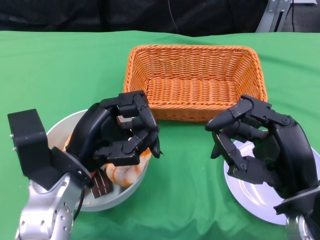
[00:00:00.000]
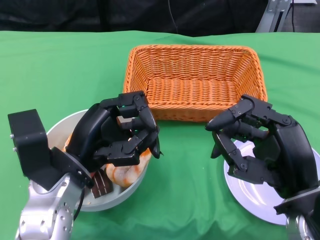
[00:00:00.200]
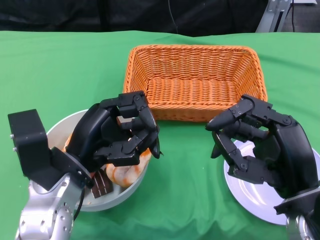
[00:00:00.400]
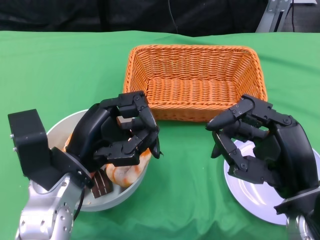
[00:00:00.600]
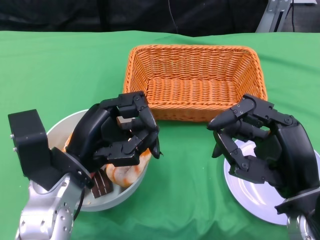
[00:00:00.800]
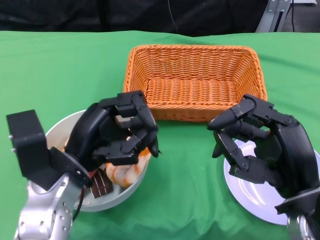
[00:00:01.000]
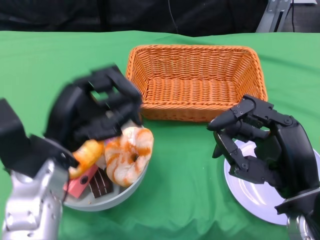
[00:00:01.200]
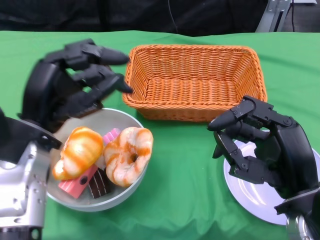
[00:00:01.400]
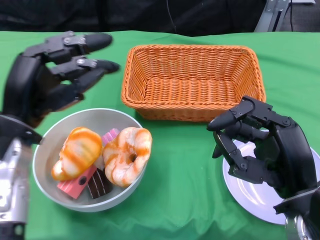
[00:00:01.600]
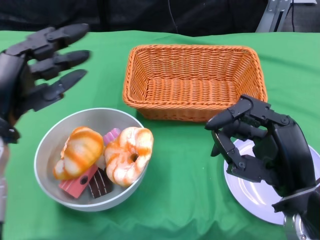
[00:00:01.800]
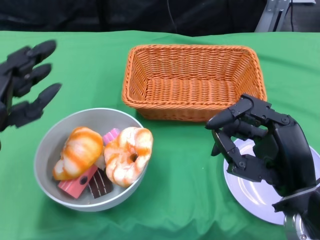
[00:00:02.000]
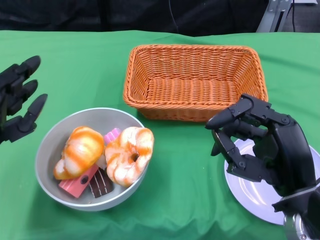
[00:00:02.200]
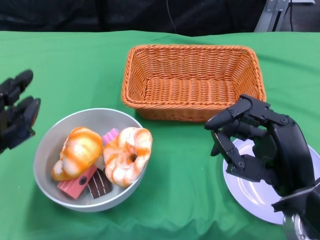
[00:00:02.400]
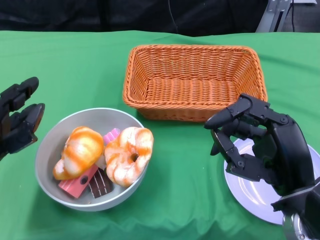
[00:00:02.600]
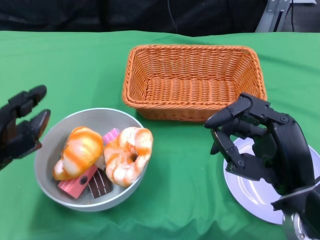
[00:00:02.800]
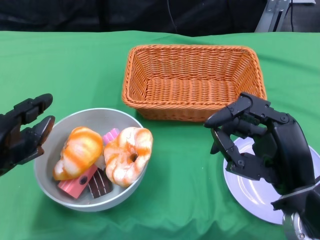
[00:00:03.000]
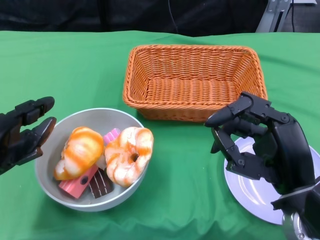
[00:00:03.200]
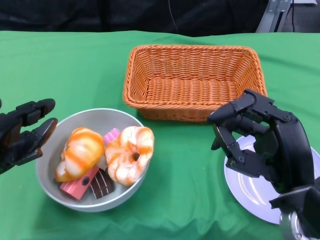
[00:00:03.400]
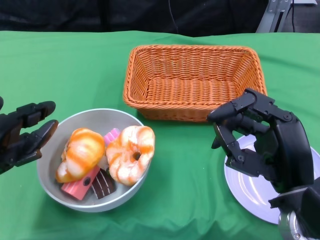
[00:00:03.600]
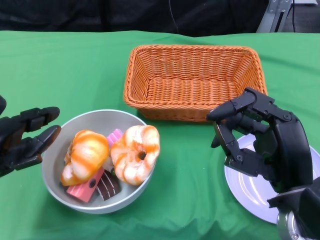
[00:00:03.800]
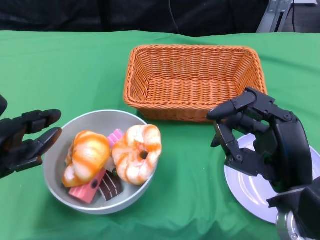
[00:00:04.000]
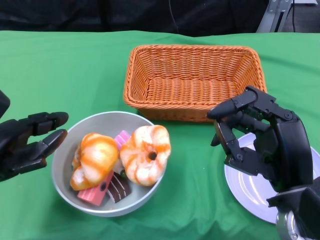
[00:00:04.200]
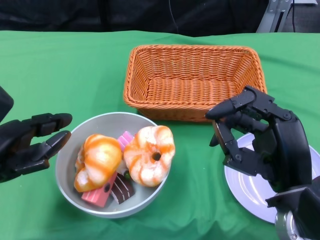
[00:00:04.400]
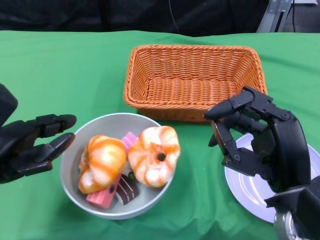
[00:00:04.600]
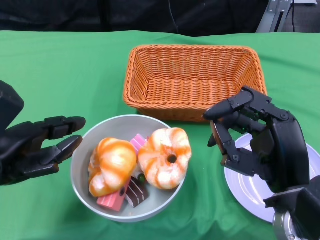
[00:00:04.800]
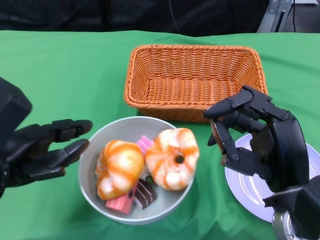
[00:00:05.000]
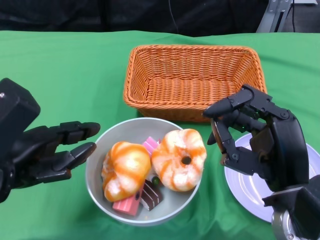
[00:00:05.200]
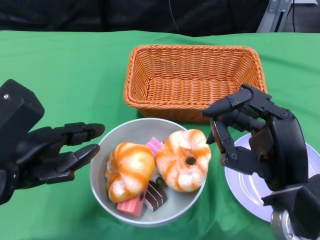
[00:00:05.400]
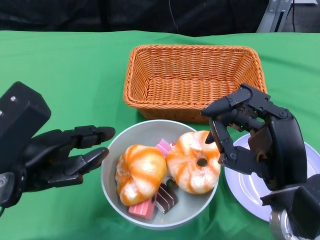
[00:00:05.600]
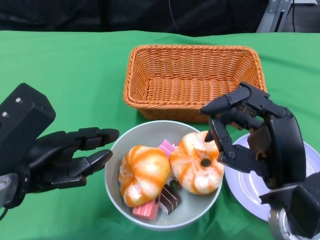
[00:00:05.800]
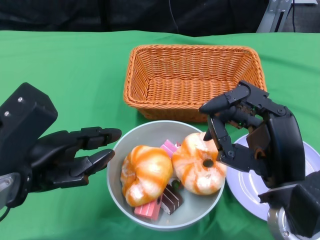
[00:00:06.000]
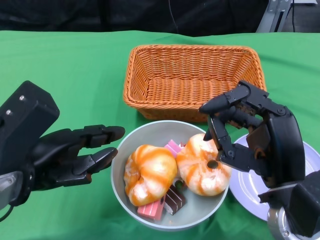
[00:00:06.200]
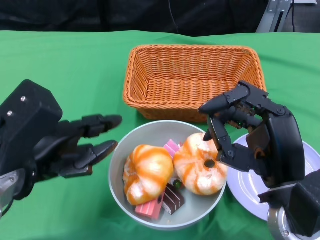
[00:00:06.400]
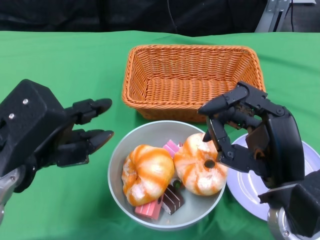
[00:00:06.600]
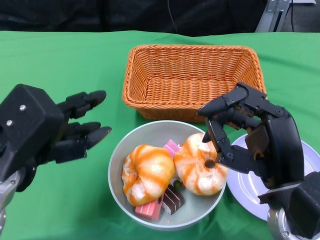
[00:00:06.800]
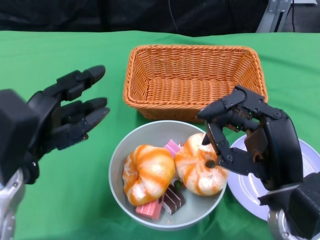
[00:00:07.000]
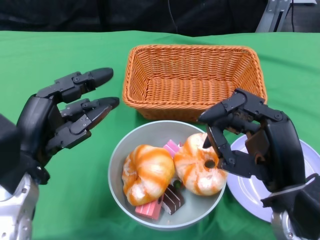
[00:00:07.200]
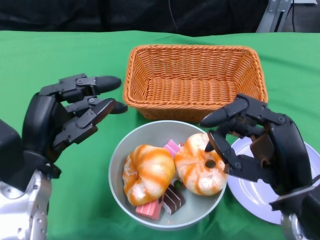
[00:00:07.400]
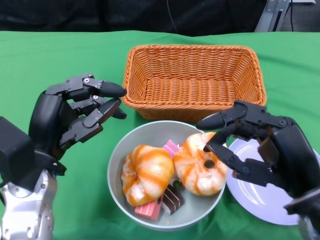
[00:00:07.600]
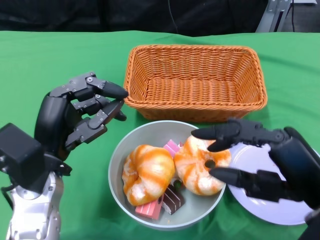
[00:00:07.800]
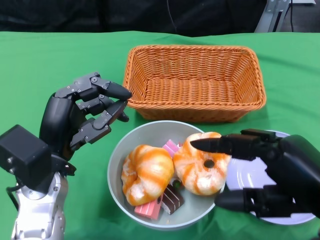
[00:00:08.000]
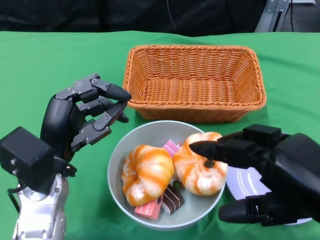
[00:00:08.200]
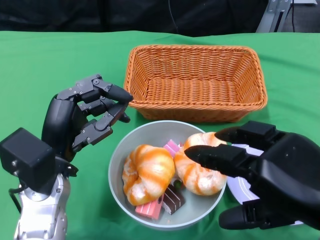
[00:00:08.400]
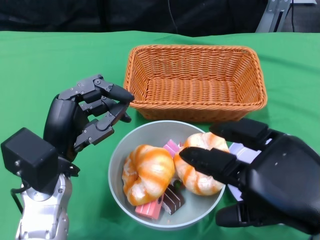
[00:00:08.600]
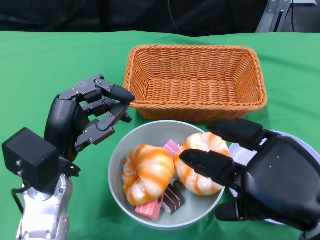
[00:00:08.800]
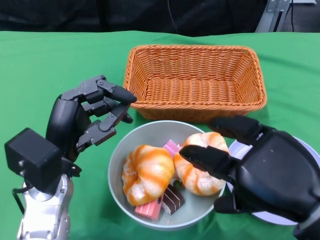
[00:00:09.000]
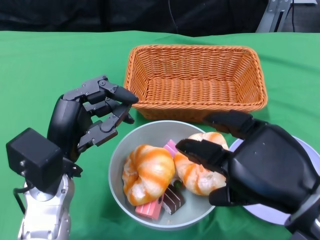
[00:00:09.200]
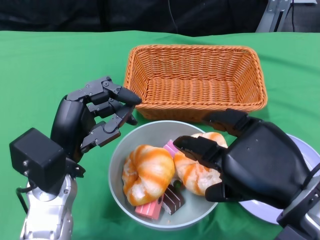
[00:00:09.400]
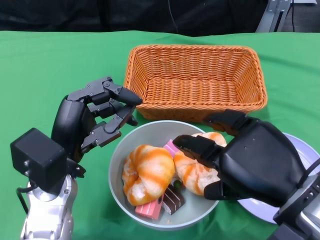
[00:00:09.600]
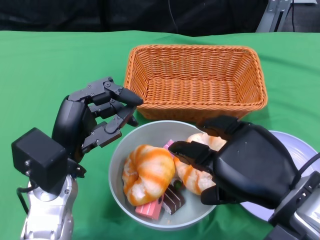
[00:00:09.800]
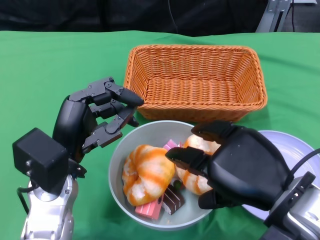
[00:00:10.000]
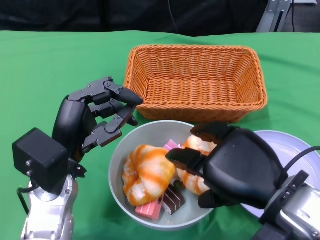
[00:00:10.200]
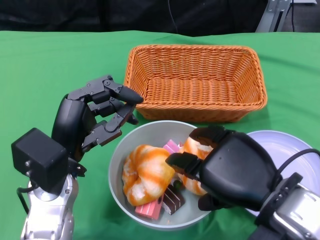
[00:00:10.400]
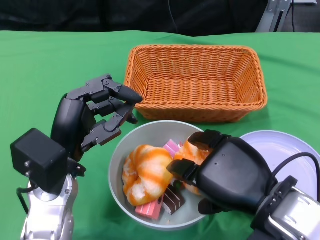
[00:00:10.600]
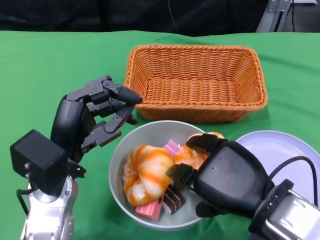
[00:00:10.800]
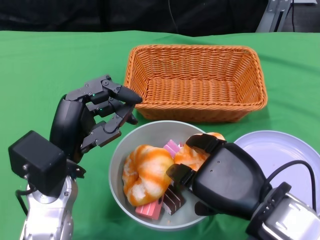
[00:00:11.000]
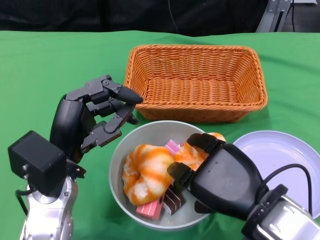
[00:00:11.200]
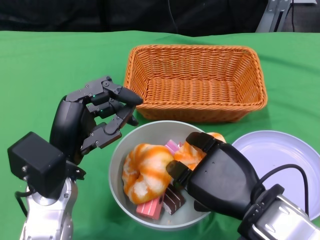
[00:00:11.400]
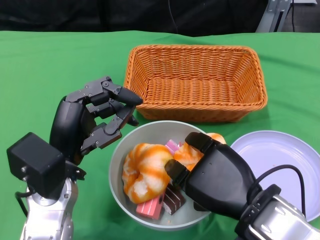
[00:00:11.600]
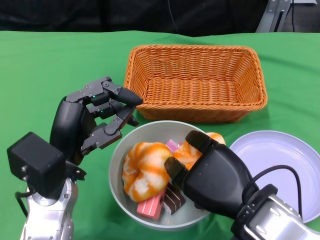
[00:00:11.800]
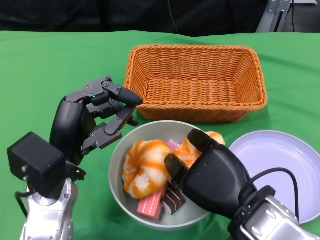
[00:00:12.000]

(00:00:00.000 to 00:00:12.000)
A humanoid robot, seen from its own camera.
Step, 00:00:00.000 - 00:00:06.600: Push the bowl to the center of the table using the left gripper.
00:00:01.600 - 00:00:03.000: The left hand is displaced to the left by roughly 5 cm.
00:00:06.000 - 00:00:07.600: The left hand shifts by roughly 5 cm.

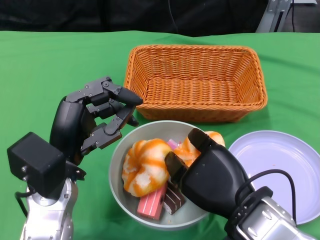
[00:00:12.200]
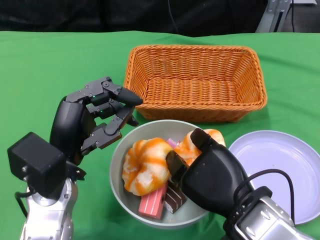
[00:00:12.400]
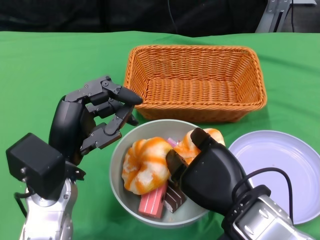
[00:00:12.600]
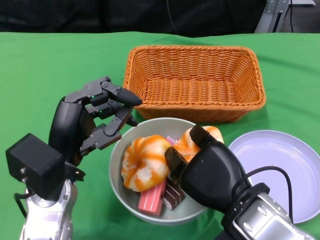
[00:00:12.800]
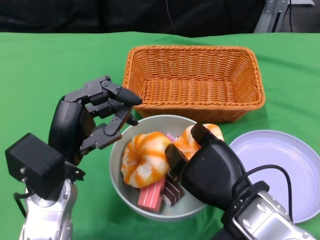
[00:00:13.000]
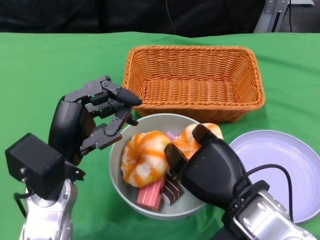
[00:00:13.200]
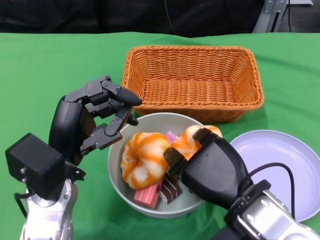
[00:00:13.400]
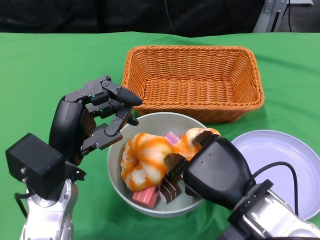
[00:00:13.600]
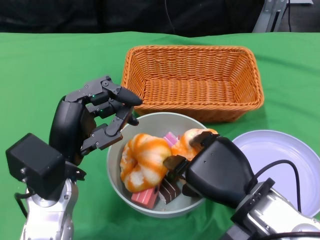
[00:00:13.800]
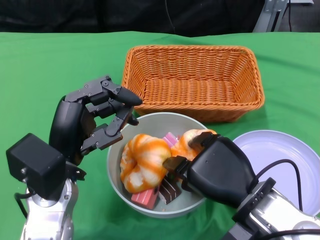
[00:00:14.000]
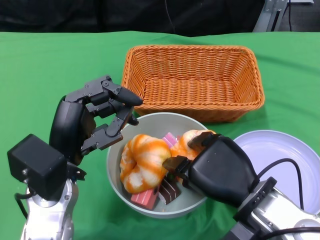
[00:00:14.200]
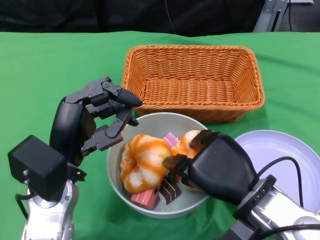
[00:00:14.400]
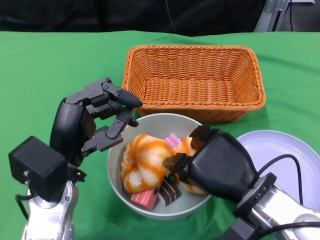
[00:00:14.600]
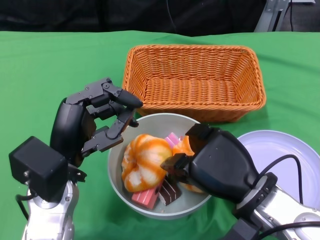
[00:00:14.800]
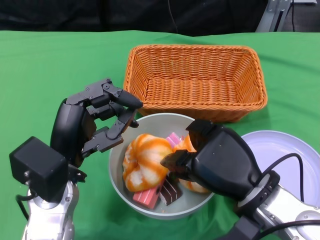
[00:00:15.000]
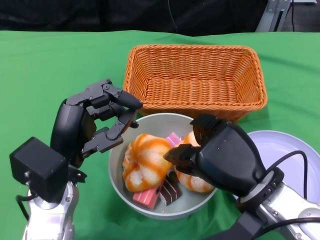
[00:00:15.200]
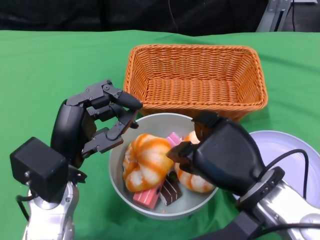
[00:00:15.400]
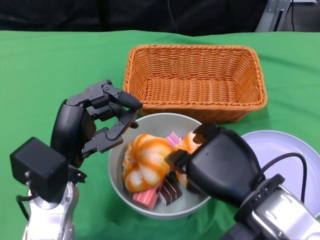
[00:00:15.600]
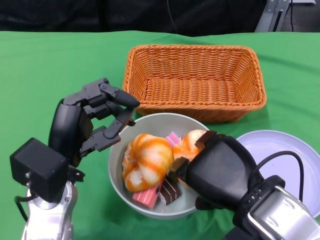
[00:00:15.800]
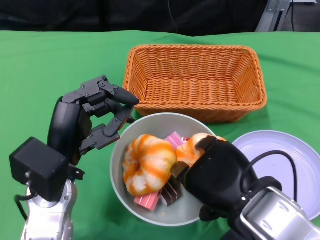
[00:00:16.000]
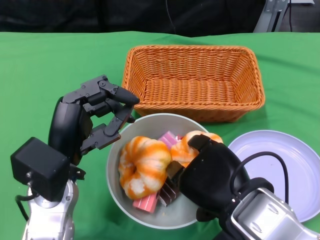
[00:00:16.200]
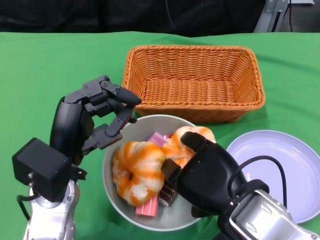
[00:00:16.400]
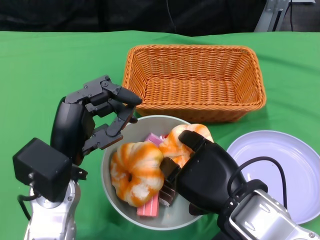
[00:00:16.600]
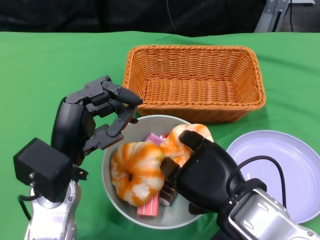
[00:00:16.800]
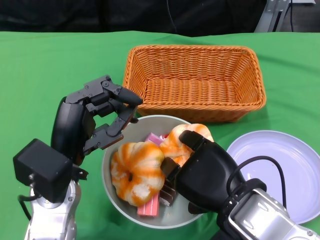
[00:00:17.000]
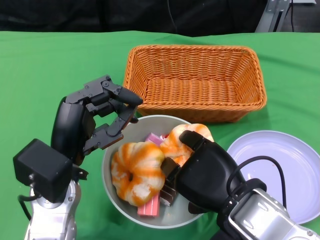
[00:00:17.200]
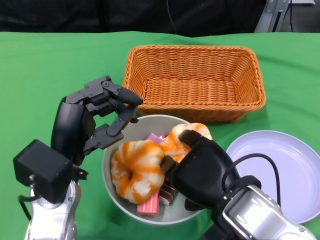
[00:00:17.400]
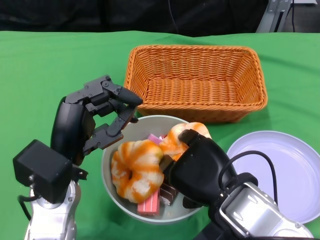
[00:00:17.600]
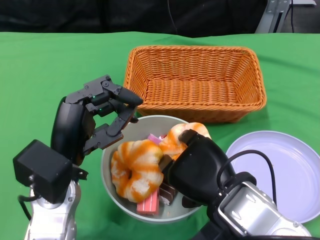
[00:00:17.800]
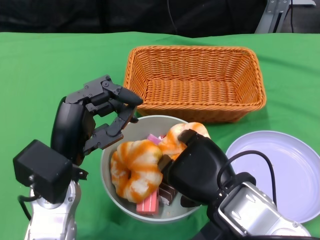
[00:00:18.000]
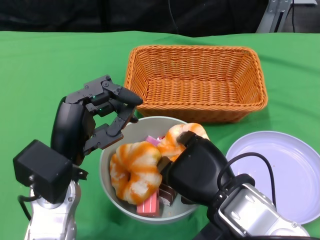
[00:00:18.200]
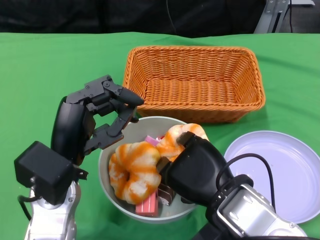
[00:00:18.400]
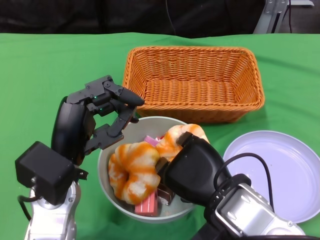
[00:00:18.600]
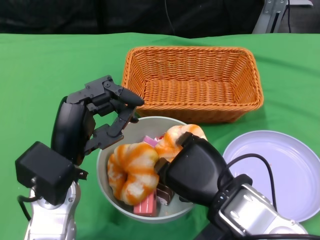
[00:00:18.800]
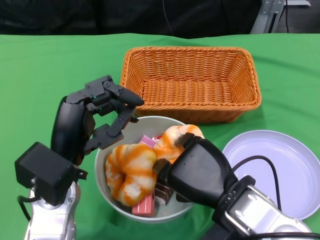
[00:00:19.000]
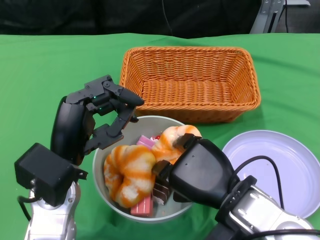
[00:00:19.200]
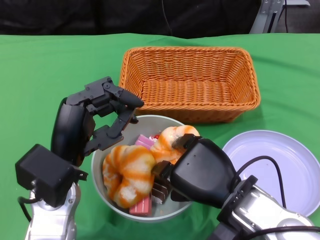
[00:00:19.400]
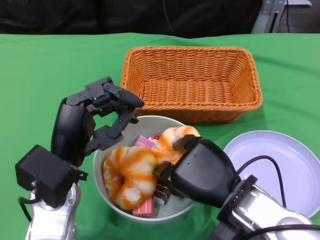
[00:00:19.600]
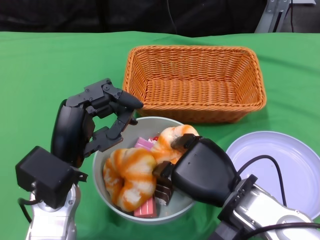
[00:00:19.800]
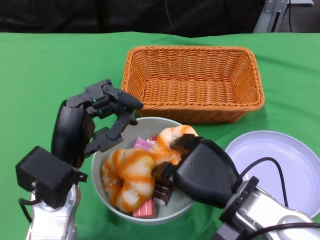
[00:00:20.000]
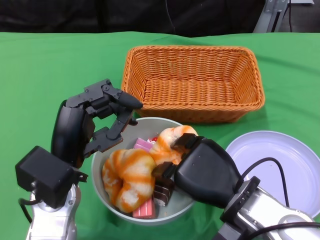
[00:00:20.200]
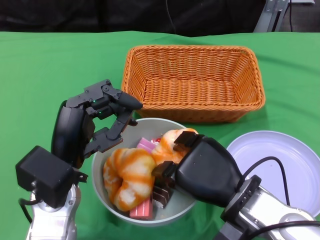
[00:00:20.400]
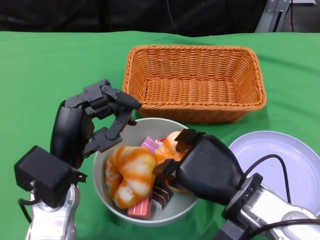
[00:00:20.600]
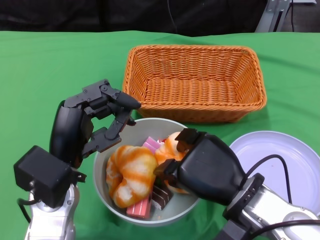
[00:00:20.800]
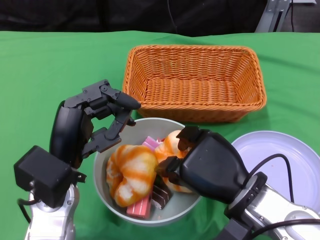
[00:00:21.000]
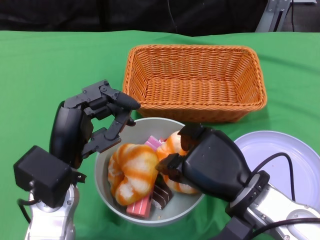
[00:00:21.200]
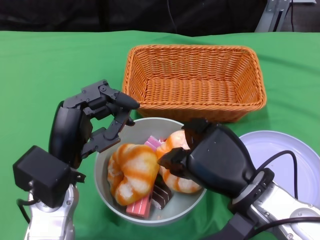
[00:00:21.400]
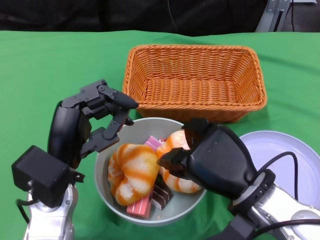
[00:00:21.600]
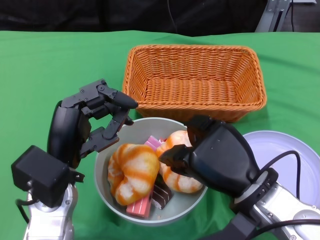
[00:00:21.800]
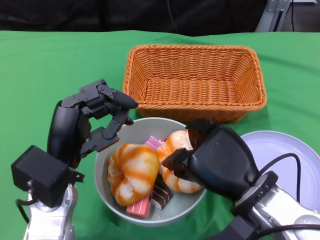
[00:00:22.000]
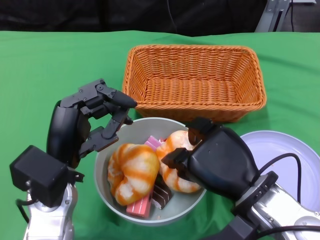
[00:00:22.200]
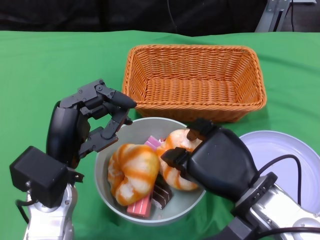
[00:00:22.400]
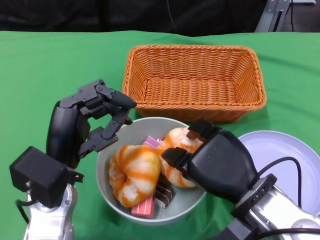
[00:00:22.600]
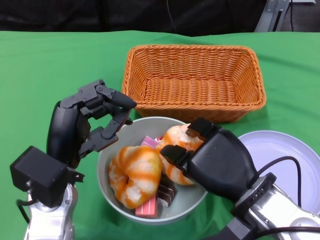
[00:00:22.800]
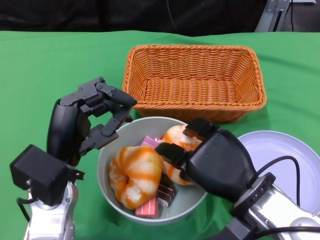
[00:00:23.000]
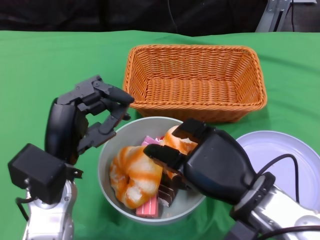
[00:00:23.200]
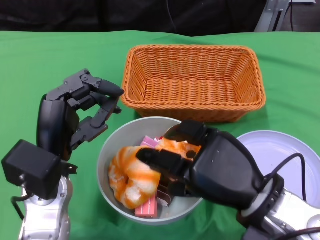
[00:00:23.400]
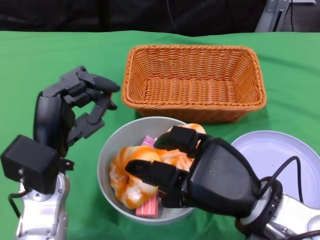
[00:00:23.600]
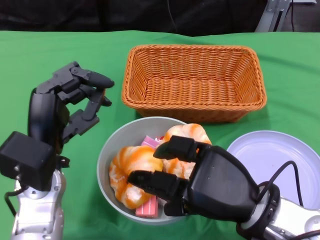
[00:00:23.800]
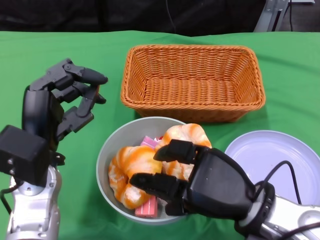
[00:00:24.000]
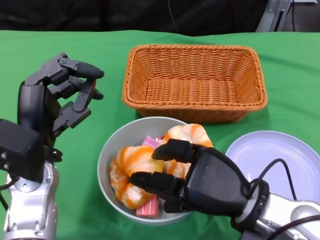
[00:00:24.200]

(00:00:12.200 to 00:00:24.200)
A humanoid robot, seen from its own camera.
00:00:15.200 - 00:00:16.600: The right hand moves about 5 cm.
00:00:16.600 - 00:00:18.200: The hands stay close to where they were, moving slightly.
00:00:19.800 - 00:00:22.600: The hands move only a little.
